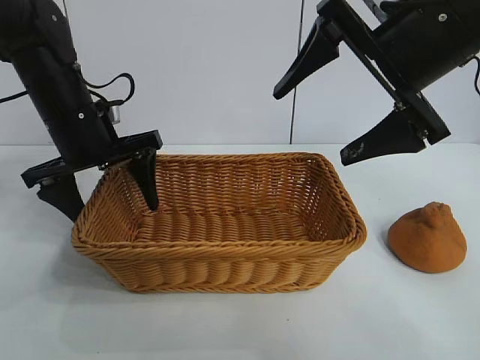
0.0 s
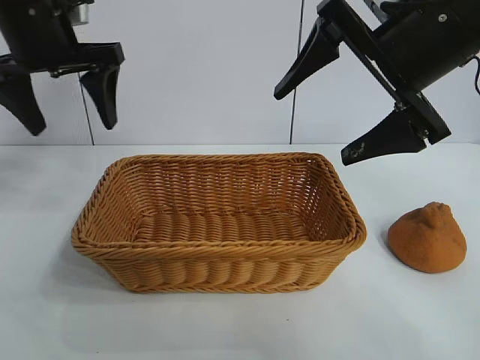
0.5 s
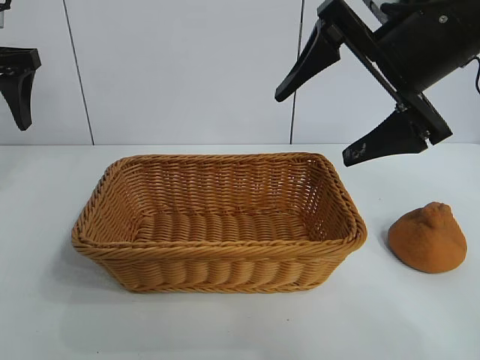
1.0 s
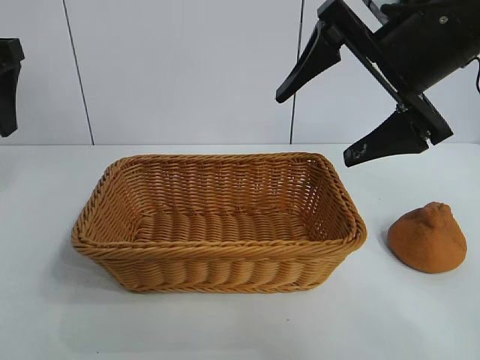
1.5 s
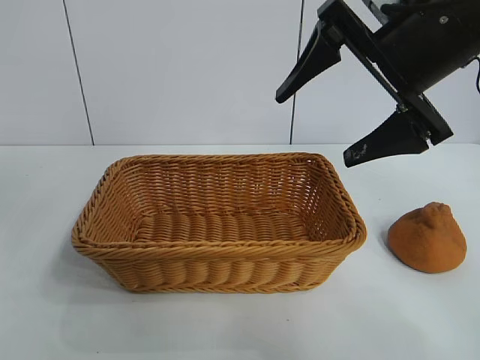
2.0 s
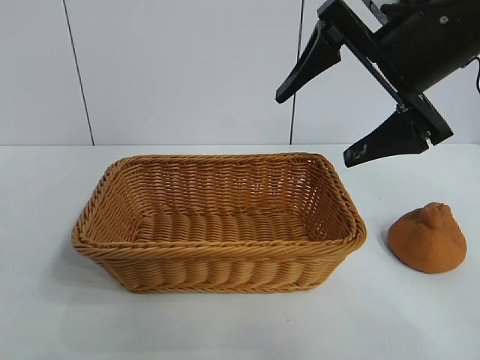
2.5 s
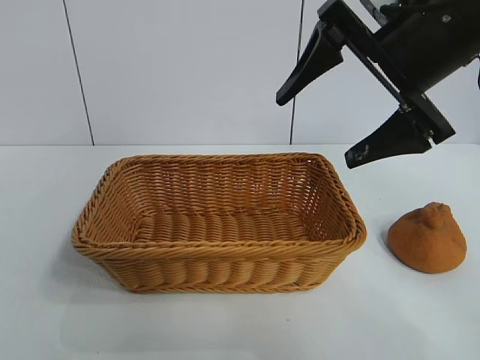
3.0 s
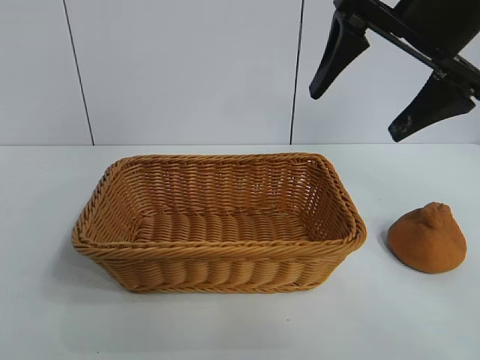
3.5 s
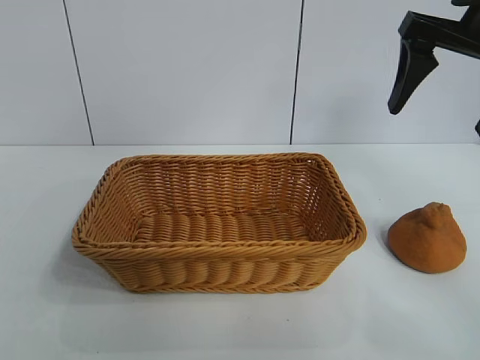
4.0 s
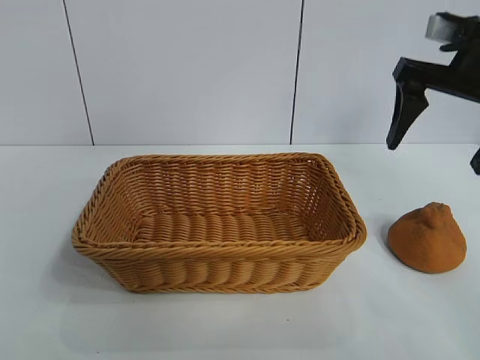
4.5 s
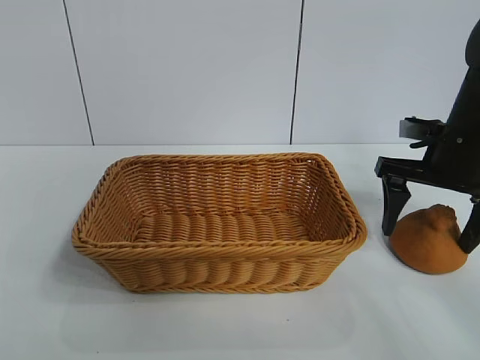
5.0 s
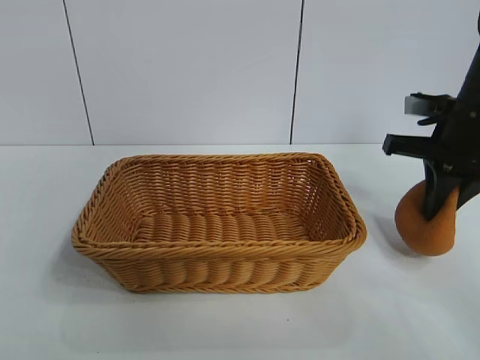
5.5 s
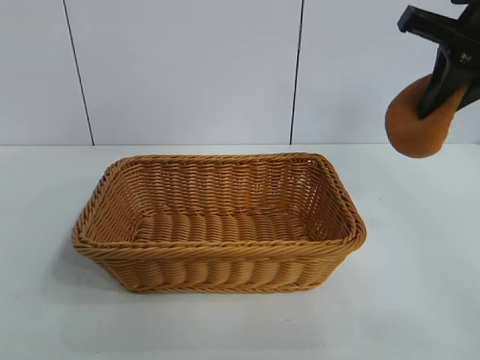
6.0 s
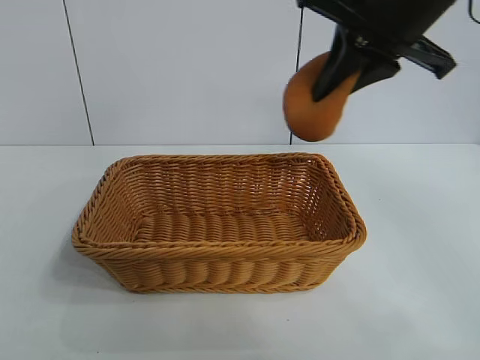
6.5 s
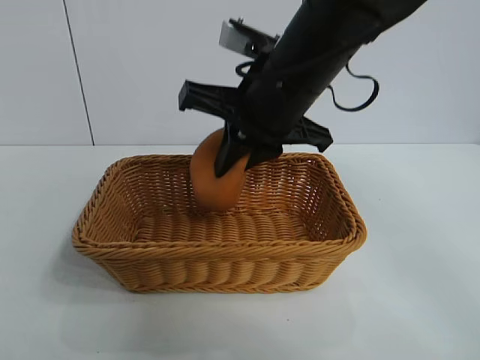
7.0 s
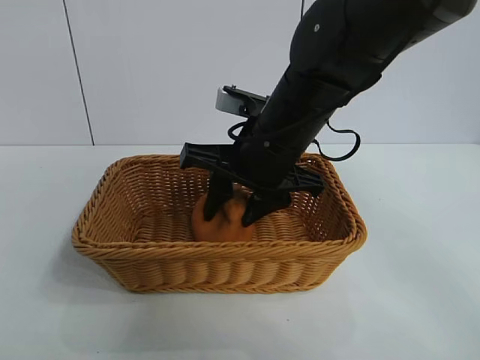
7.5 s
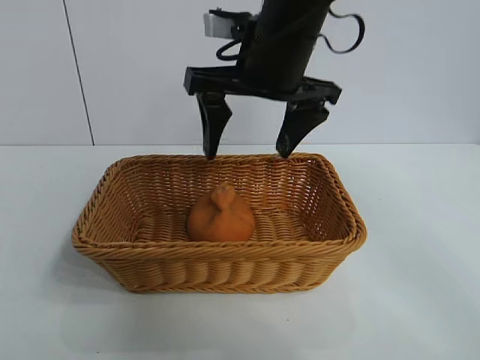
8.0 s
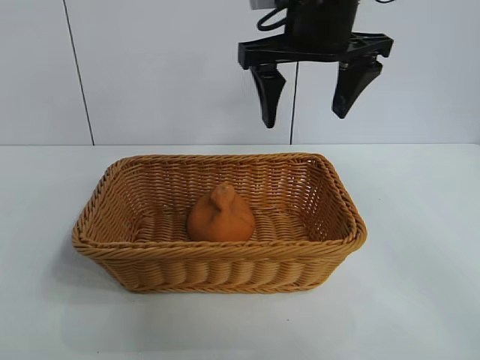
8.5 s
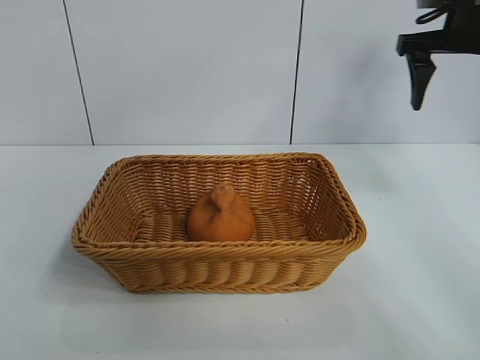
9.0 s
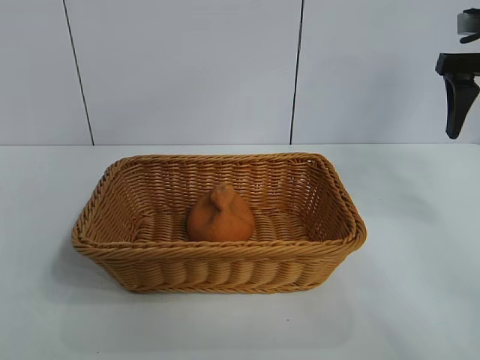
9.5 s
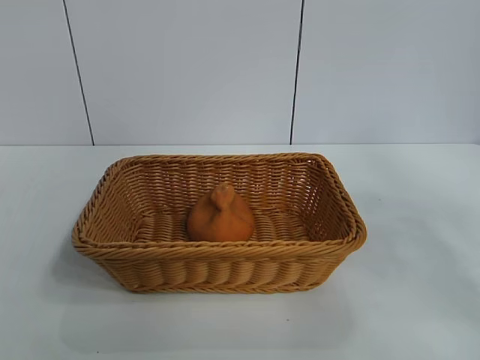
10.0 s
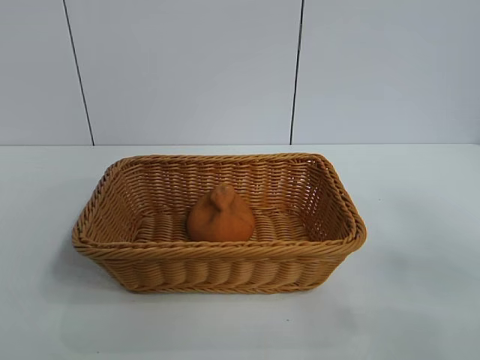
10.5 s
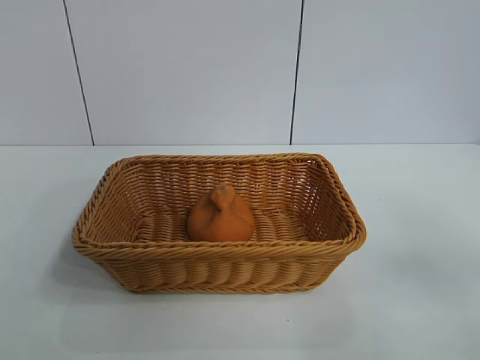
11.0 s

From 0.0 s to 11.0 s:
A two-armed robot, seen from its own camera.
Task of the whole recording: pick up the orange and put it into the basket.
Step, from 0.5 s to 5.0 s: Grasp the orange with right gripper.
Step, from 5.5 s to 7.5 s: Place the orange in the basket with right gripper.

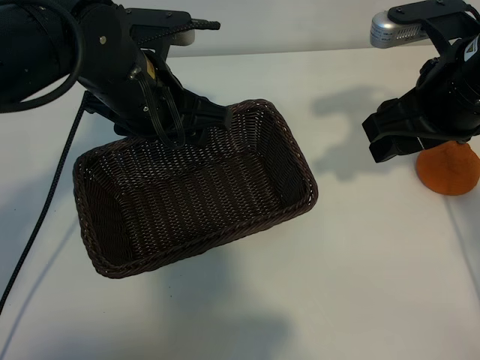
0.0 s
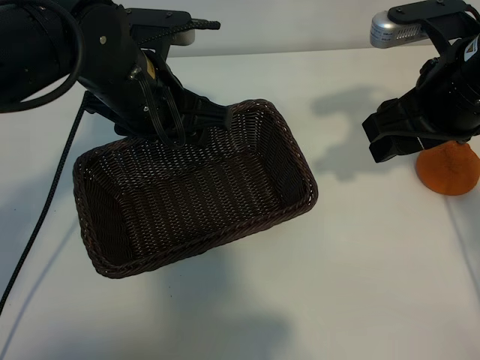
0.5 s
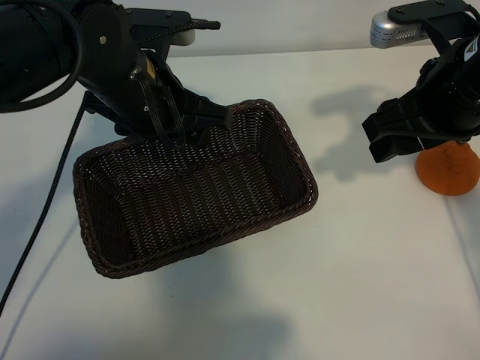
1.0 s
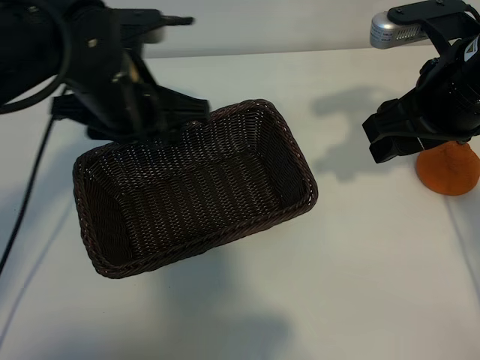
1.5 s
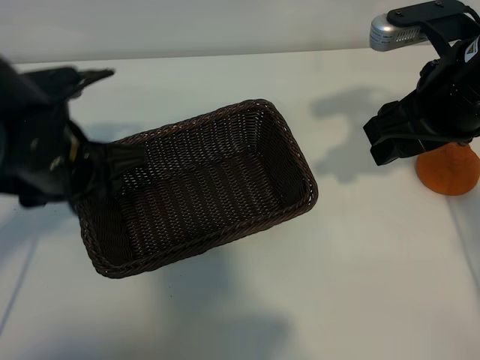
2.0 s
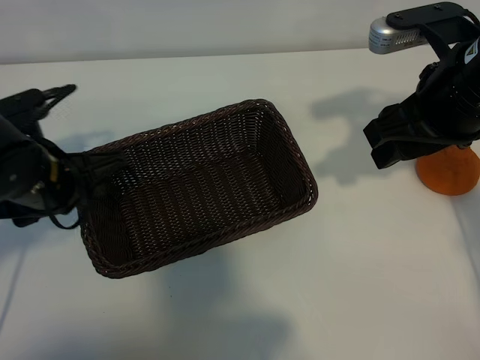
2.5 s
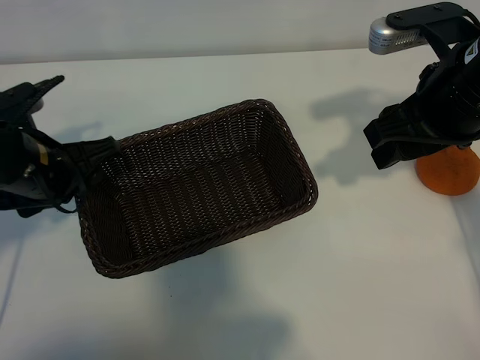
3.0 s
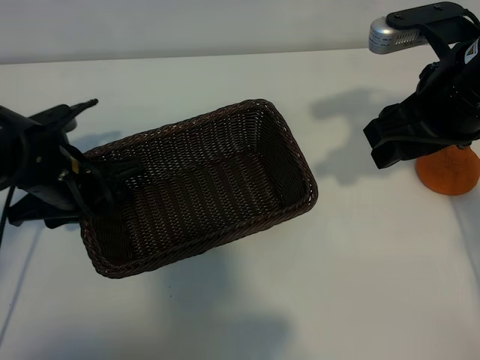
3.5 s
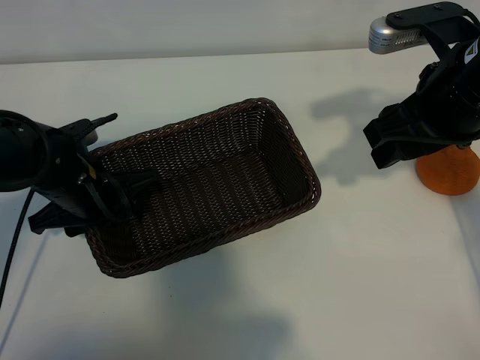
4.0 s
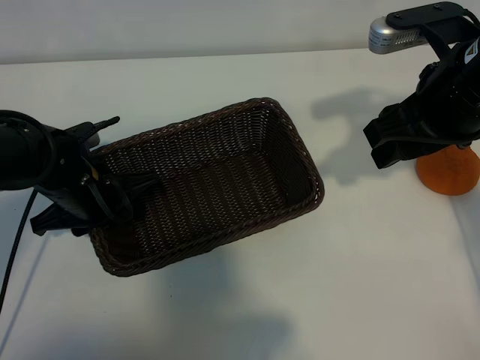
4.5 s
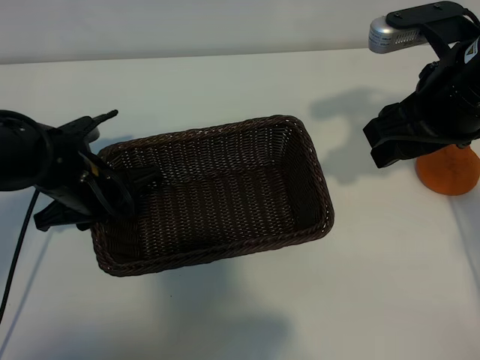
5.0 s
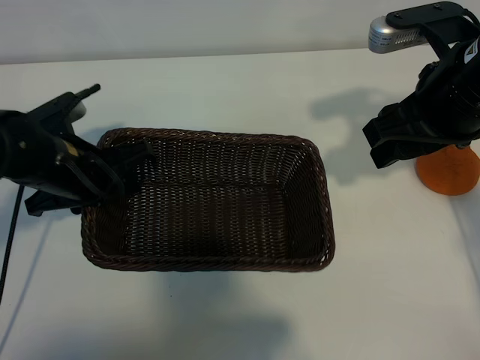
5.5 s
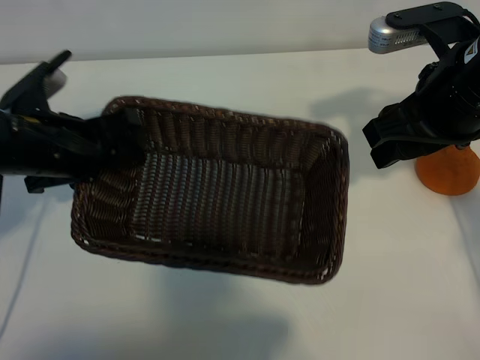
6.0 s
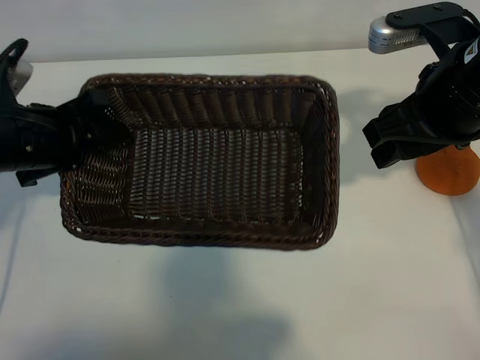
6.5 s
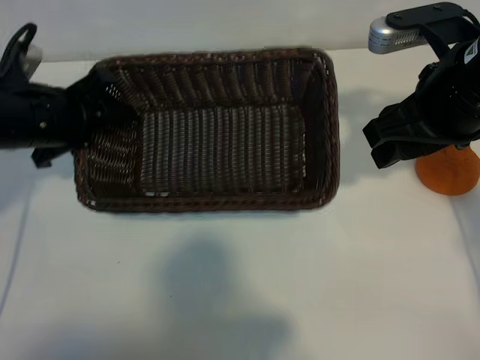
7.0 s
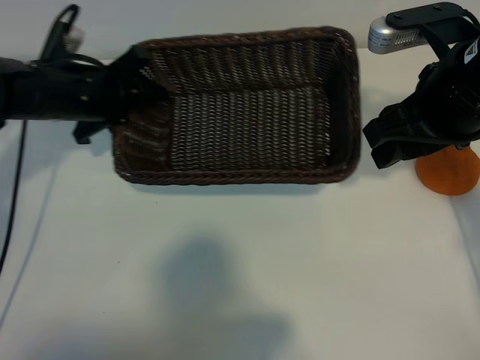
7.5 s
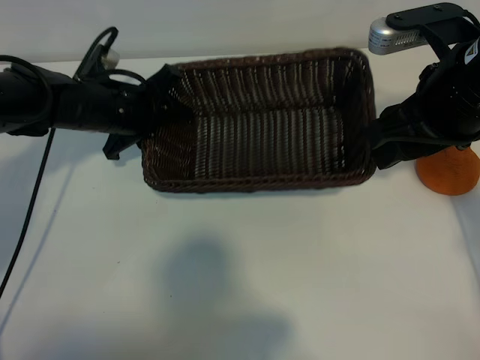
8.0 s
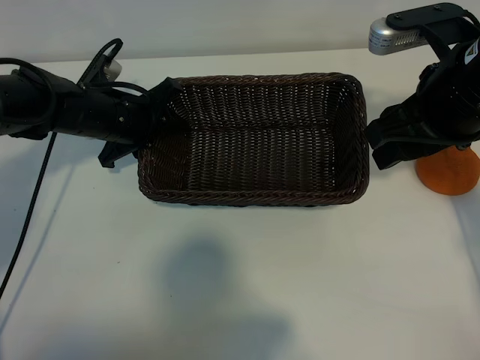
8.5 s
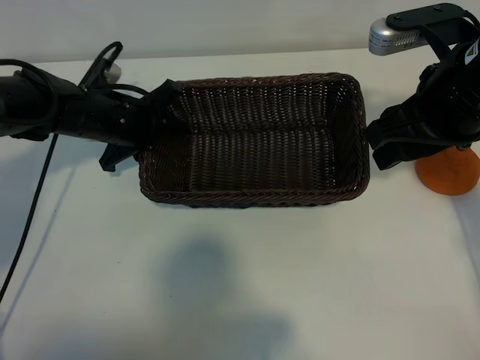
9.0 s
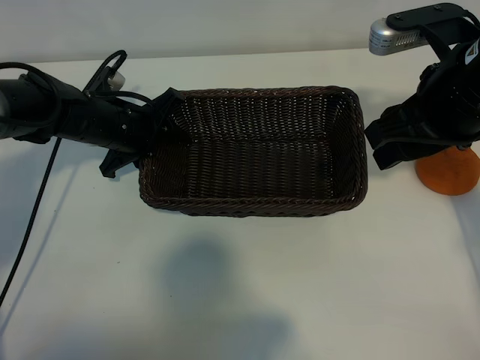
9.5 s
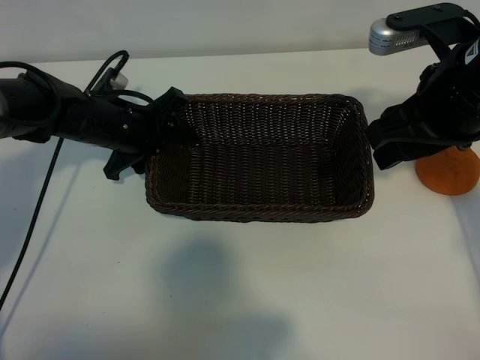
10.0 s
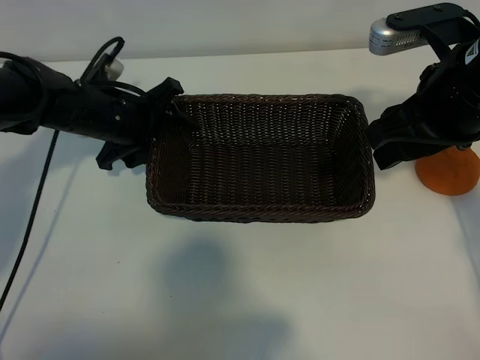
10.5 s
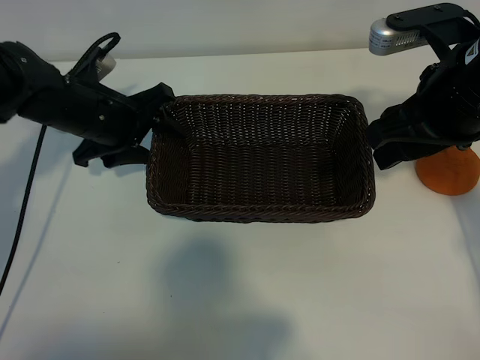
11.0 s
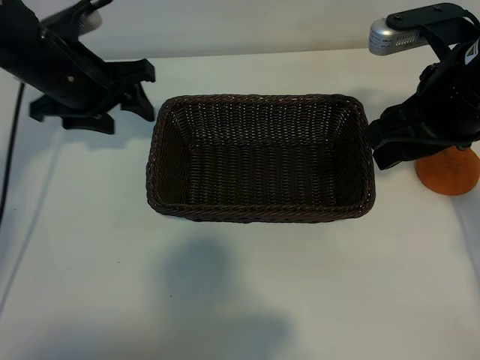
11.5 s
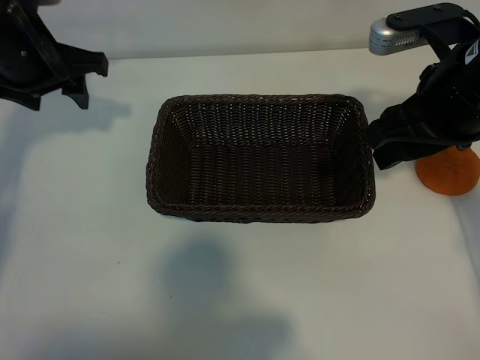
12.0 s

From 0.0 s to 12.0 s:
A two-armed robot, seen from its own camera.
Task of the whole recording: pick up the orange and put it into the basket.
Step, from 1.0 s to 4.5 s: Grasp the basket with left gripper.
Step, from 5.0 s to 9.5 s: Place the basket in the center of view with left gripper.

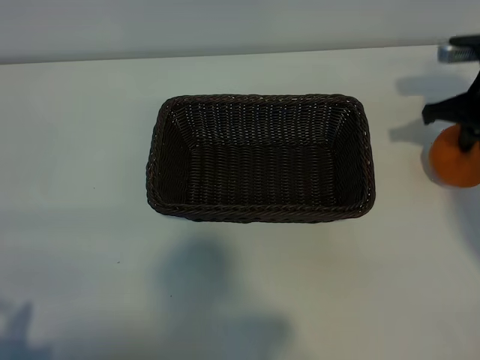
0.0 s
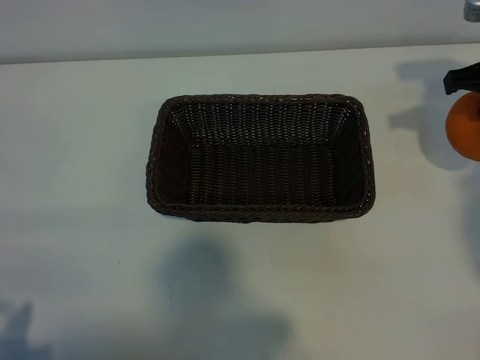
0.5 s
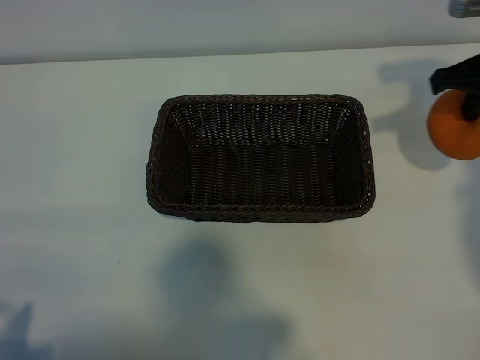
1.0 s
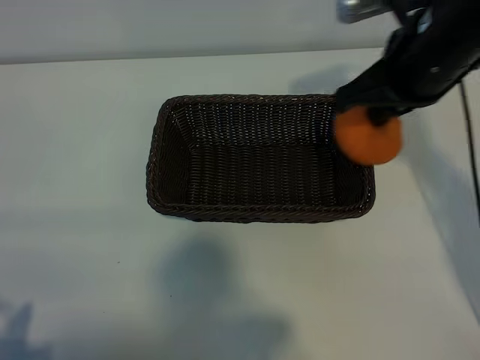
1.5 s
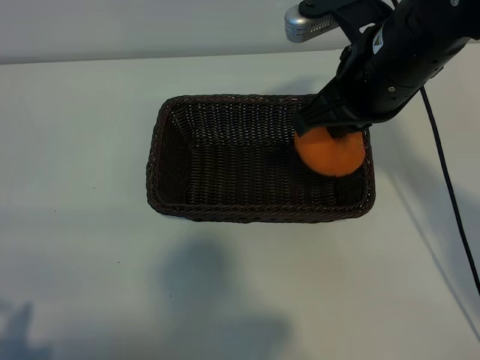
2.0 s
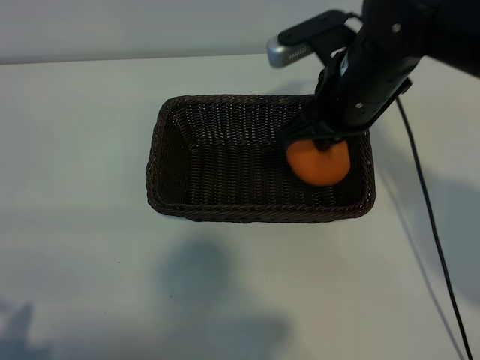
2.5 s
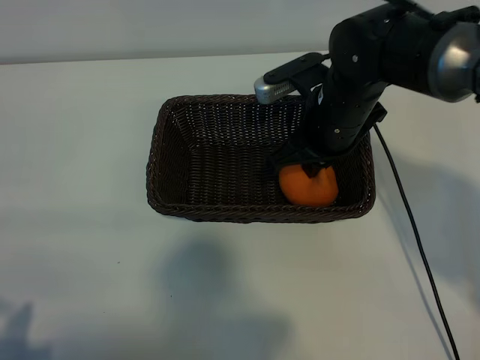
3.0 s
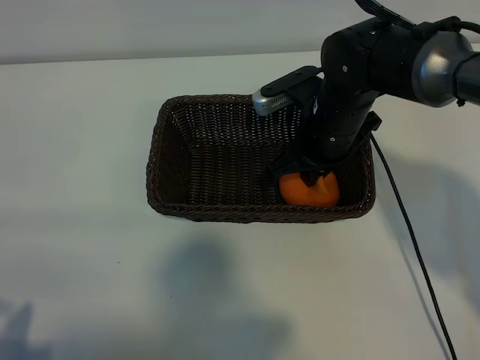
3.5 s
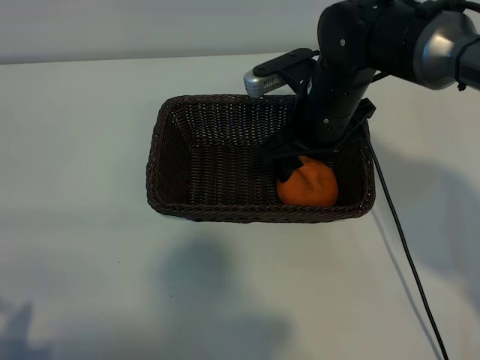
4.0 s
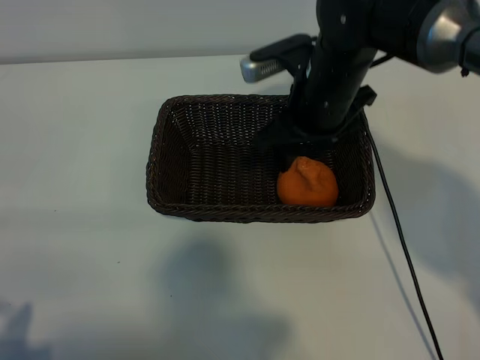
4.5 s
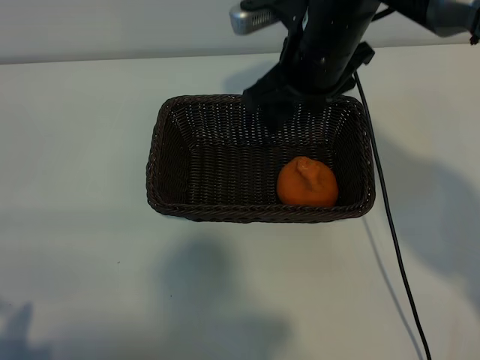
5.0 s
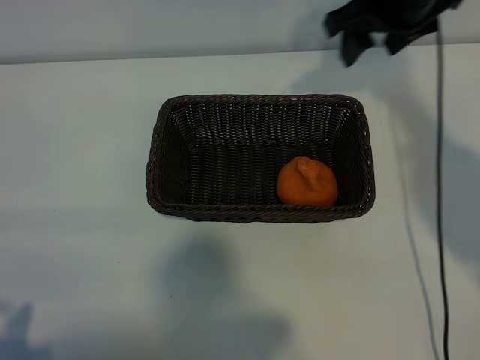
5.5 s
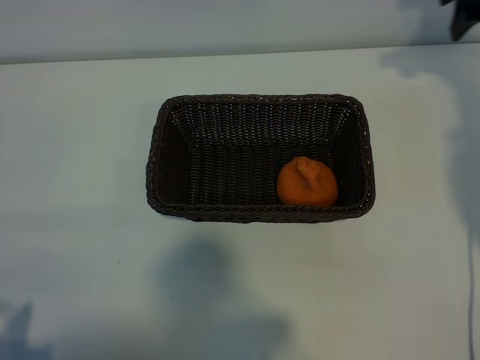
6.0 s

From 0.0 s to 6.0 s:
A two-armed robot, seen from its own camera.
Task of the whole recording: pick up the orange and put it into the basket.
Step, from 0.0 s to 3.5 s: Place the orange in the basket with right gripper.
